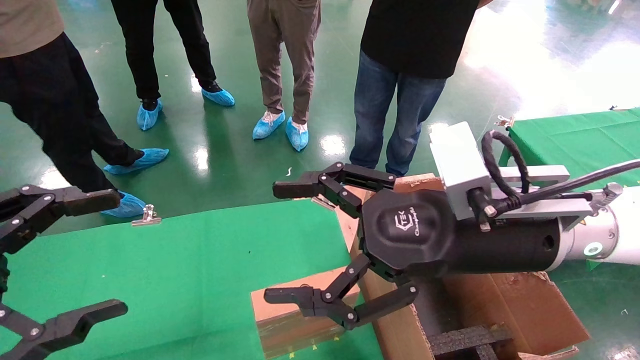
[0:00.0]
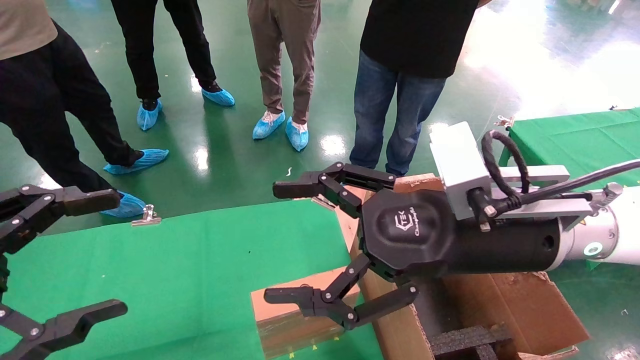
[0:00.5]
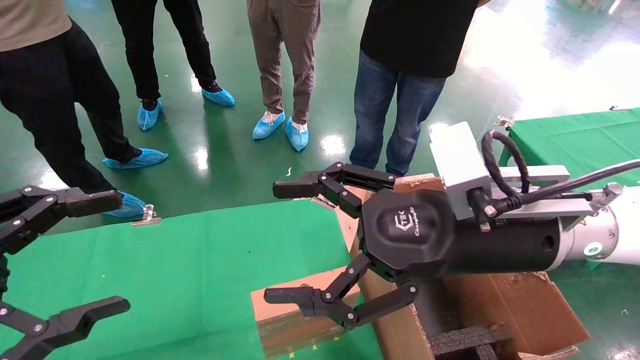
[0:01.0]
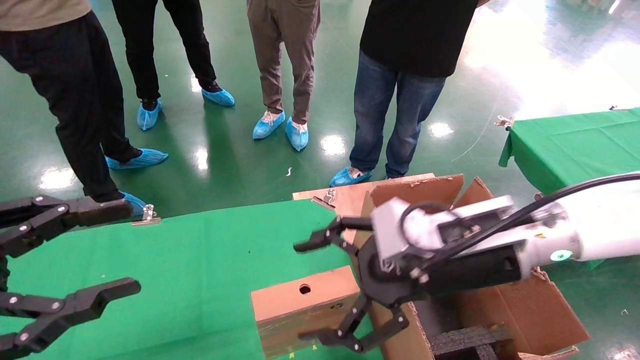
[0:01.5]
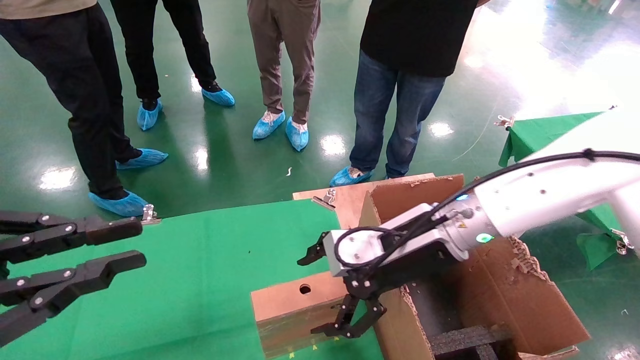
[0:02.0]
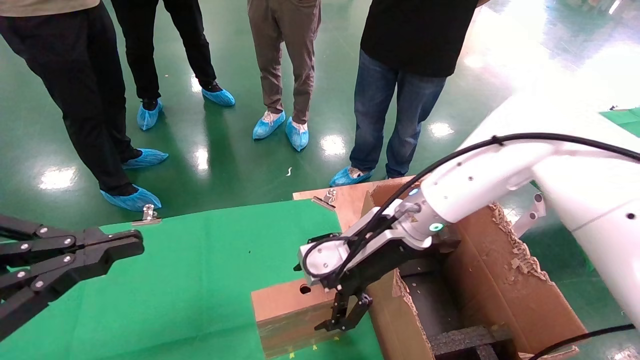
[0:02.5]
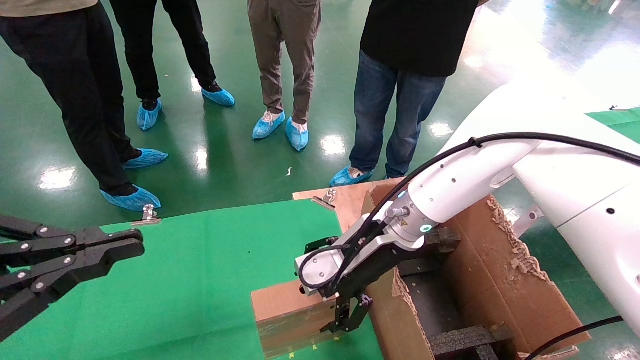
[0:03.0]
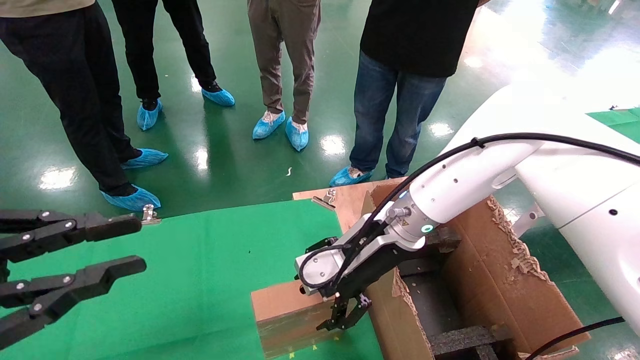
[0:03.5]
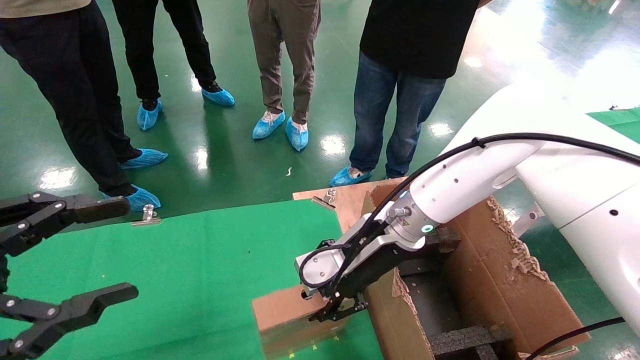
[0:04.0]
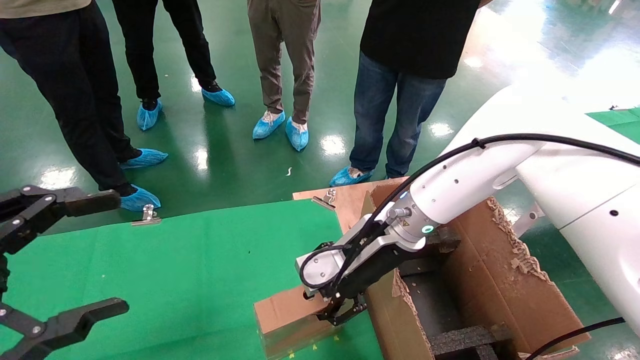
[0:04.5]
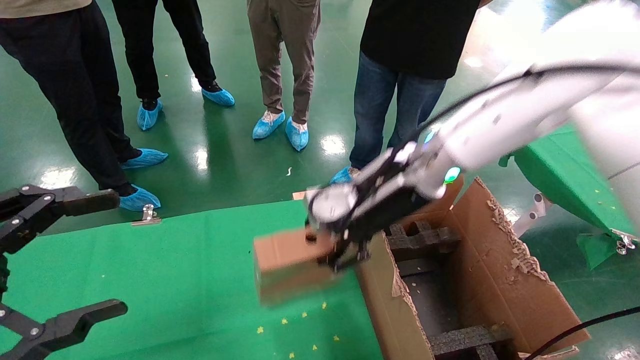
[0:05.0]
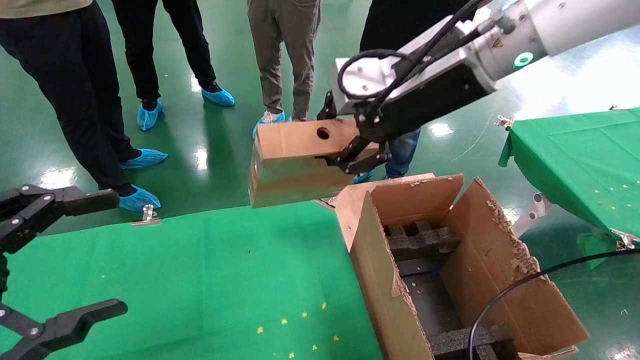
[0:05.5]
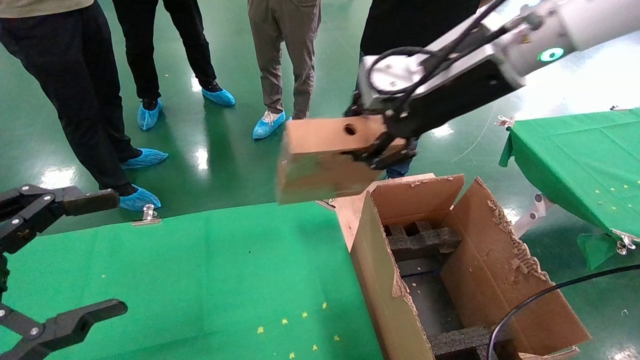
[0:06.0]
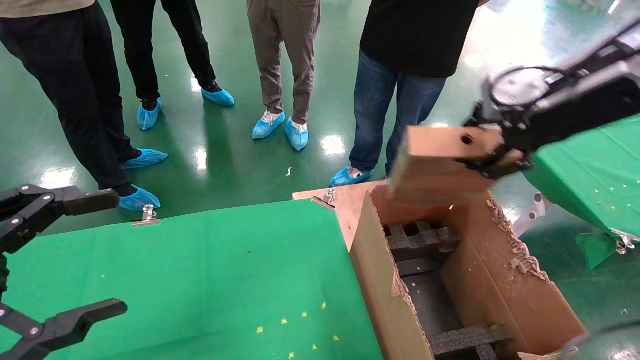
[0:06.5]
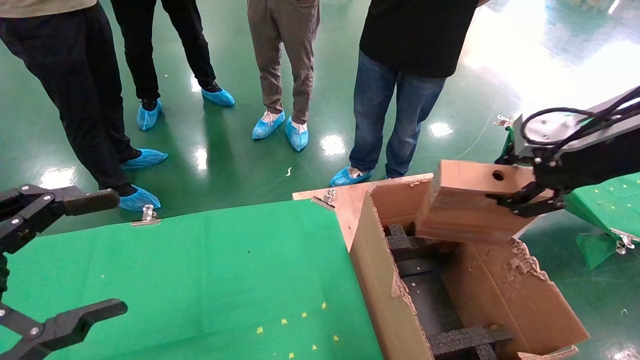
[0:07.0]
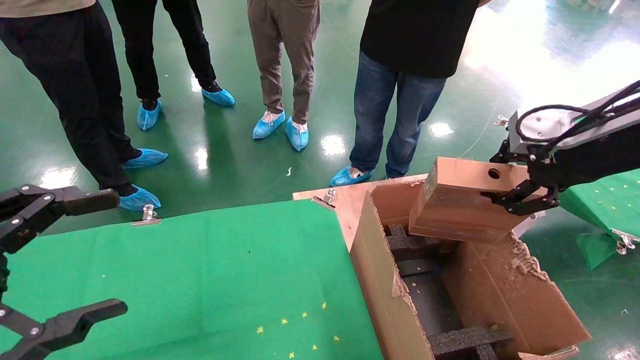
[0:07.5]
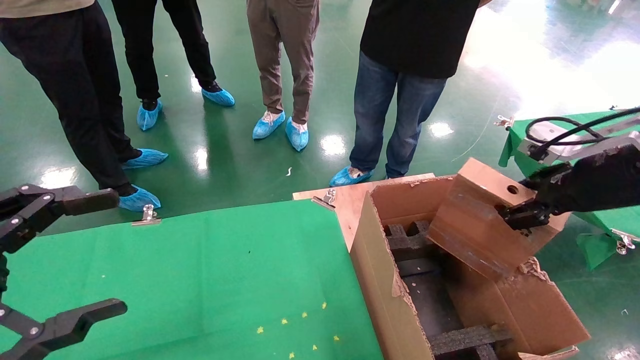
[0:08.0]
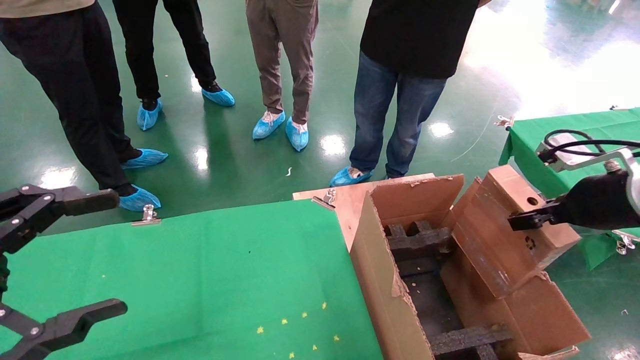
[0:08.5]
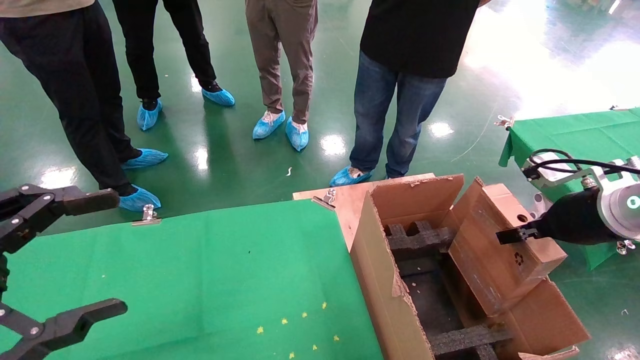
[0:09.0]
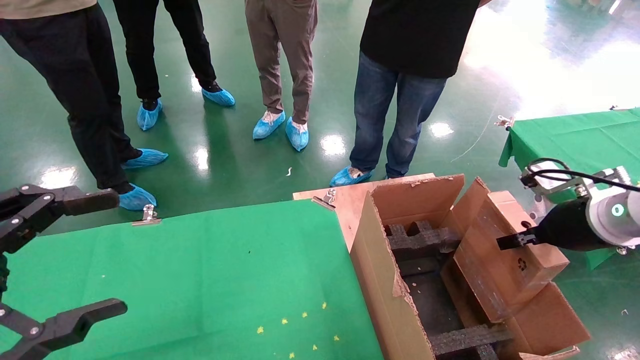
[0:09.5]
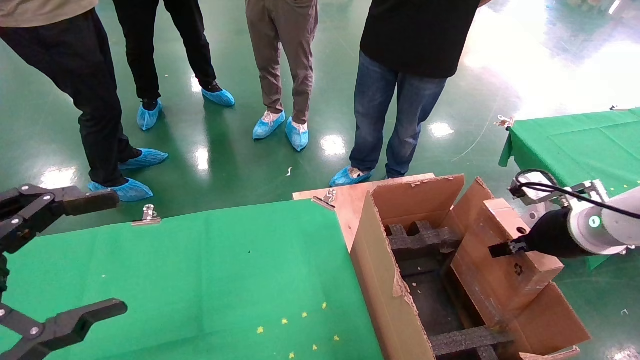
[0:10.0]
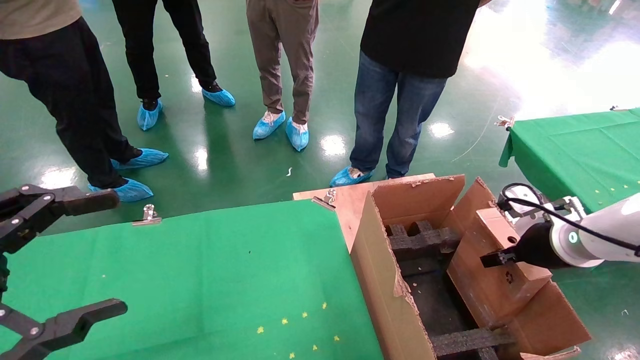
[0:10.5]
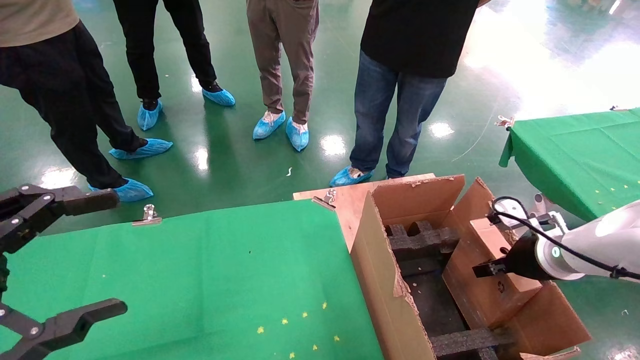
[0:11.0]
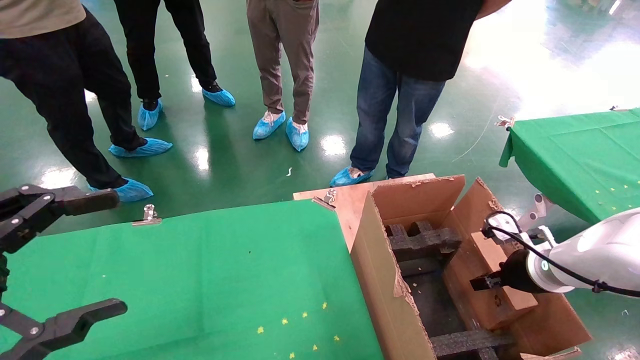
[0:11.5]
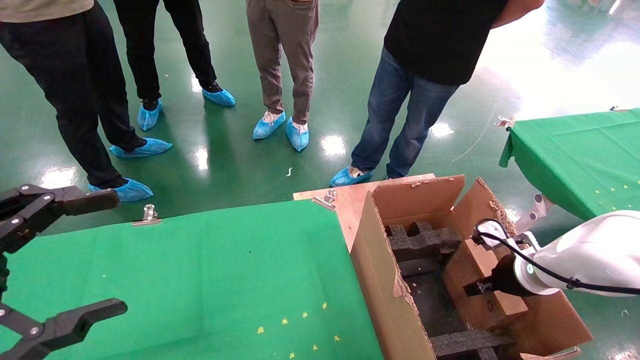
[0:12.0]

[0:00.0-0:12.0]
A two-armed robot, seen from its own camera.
Task of the whole recording: using a robotic arm to pick up a cardboard box and palace it the carton.
Step, 0:01.5 to 0:04.0: Pick up the mouse and the power cord paper box.
0:00.0 to 0:02.0: The right gripper goes about 10 cm forward and downward. The left gripper closes.
0:02.0 to 0:04.0: The right gripper shifts by about 5 cm, and closes.
0:04.0 to 0:06.0: The right gripper travels upward and to the right by some 25 cm, and closes its fingers; the left gripper opens.
0:06.0 to 0:08.0: The right gripper is displaced to the right and downward by roughly 20 cm.
0:08.0 to 0:10.0: The right gripper goes approximately 10 cm downward.
0:10.0 to 0:12.0: The right gripper heads downward, covering some 10 cm.

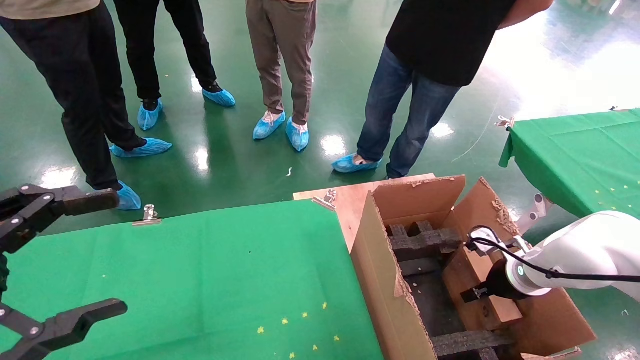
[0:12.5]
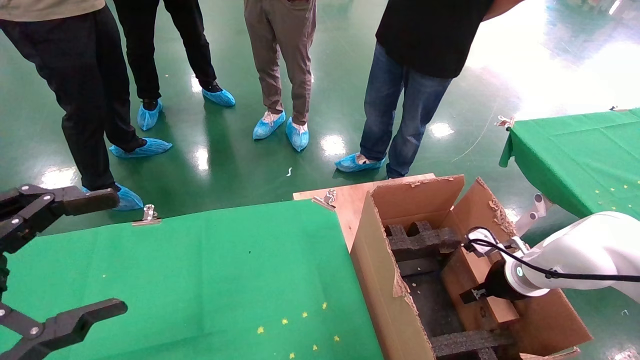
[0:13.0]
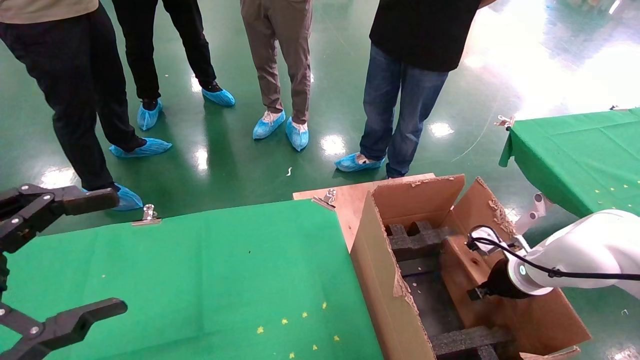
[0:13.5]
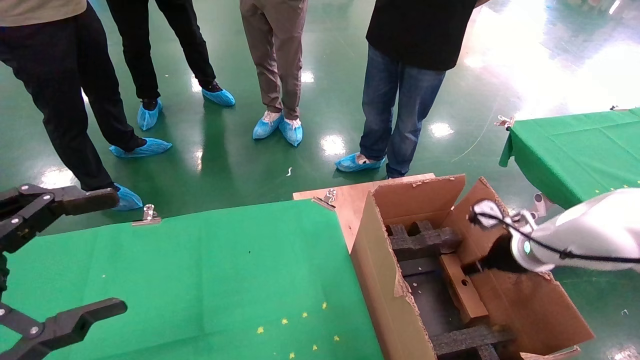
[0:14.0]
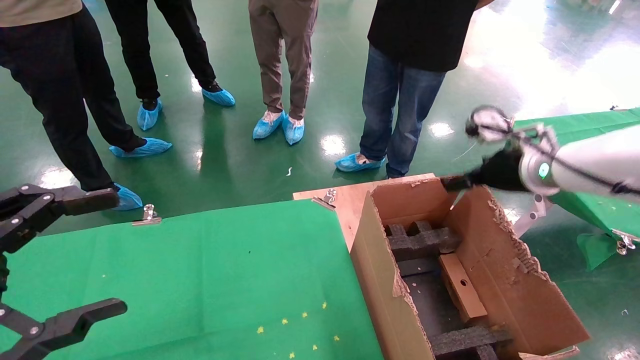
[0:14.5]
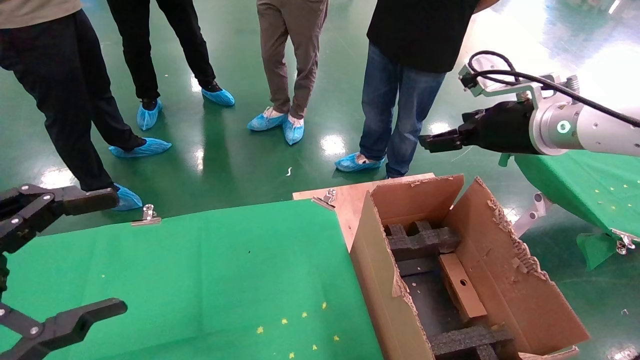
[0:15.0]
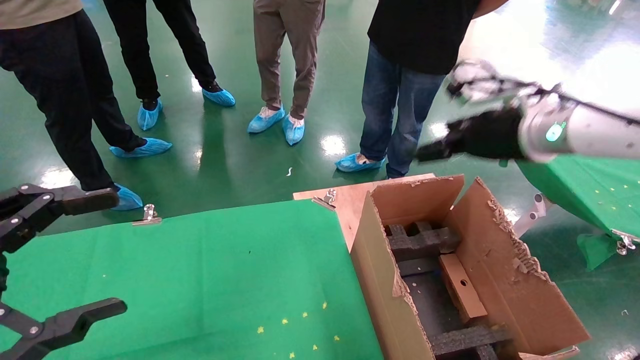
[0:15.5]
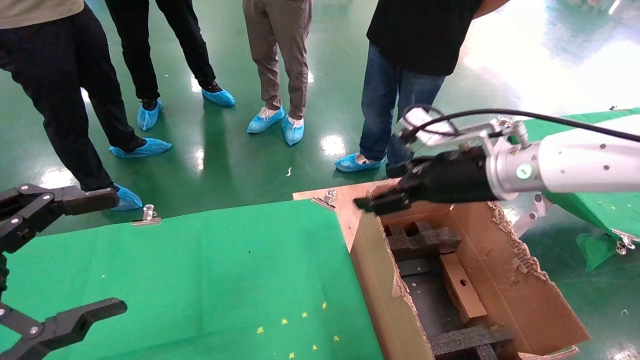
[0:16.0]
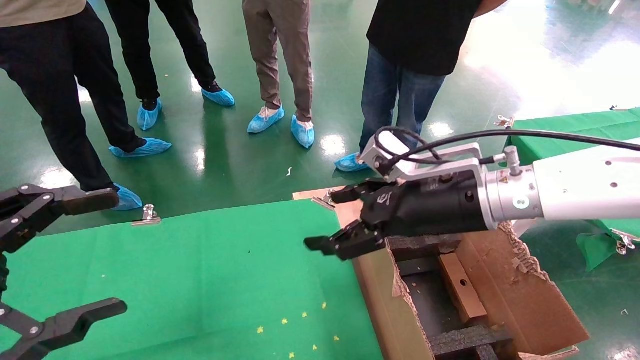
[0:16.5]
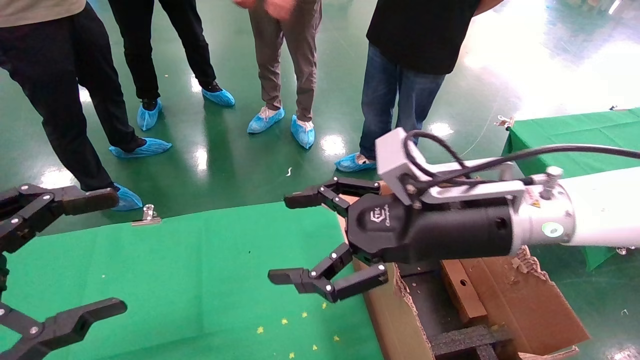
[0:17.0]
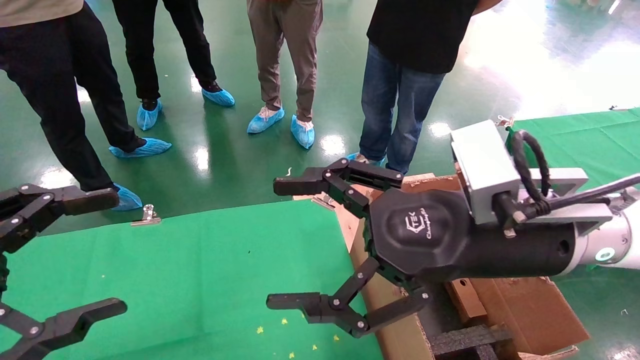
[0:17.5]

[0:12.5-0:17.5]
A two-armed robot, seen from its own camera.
Task of the whole recording: using a robotic arm to pick up a cardboard box and palace it the carton.
0:12.5 to 0:15.0: The right gripper shifts roughly 25 cm upward, and opens its fingers.
0:15.0 to 0:17.5: The right gripper goes approximately 20 cm to the left, backward and downward.
